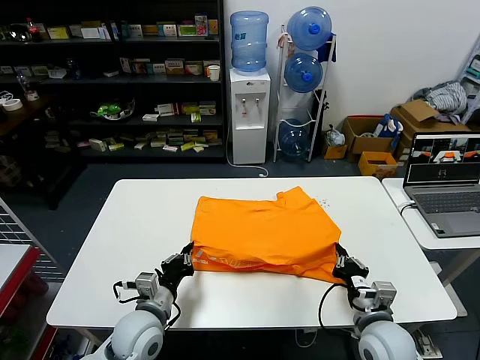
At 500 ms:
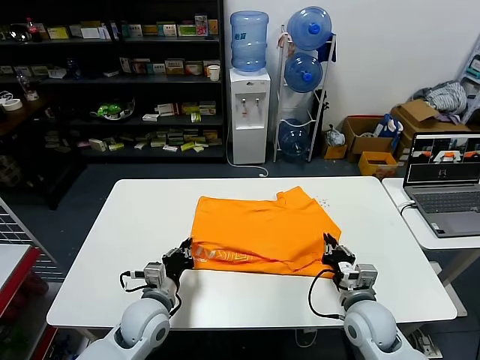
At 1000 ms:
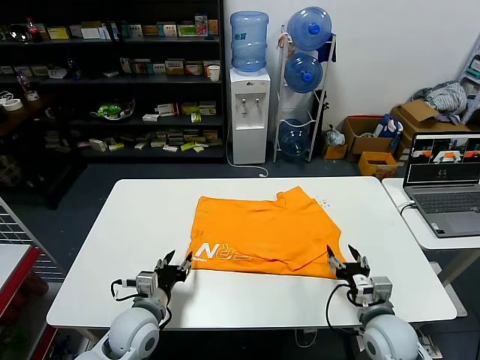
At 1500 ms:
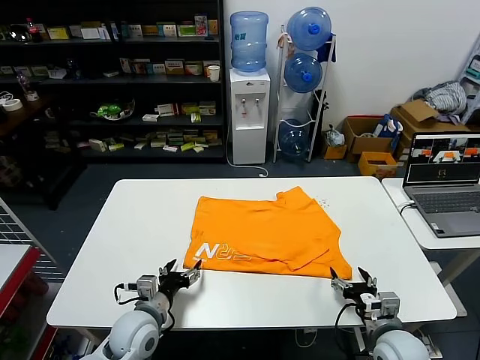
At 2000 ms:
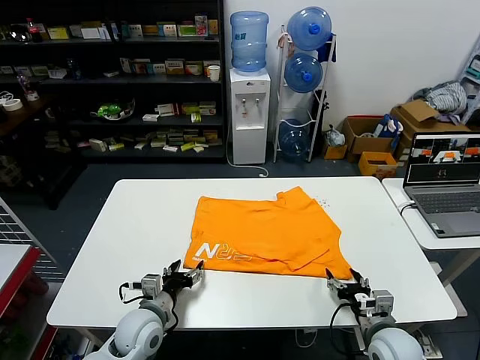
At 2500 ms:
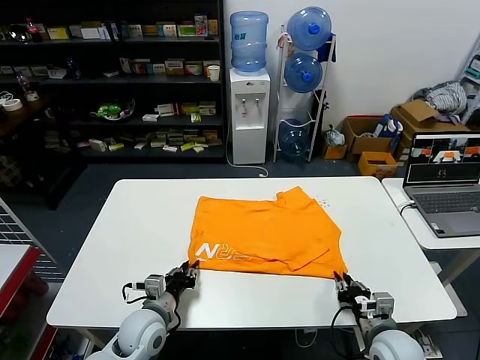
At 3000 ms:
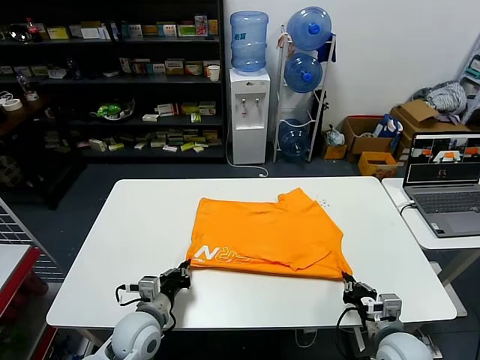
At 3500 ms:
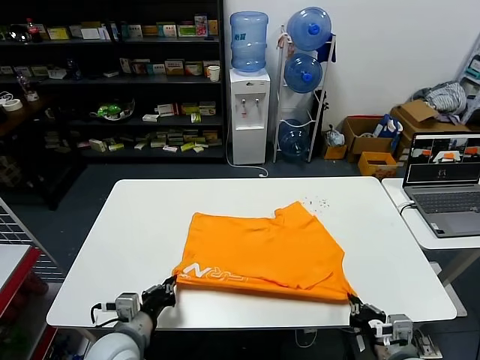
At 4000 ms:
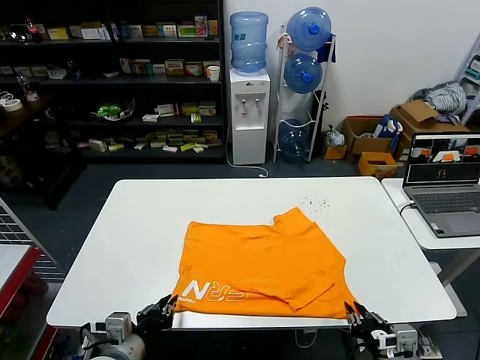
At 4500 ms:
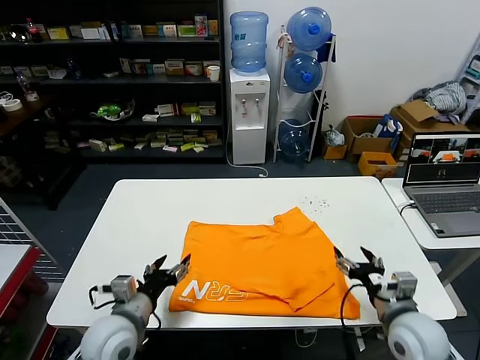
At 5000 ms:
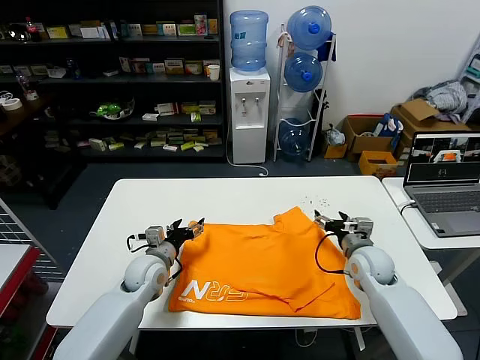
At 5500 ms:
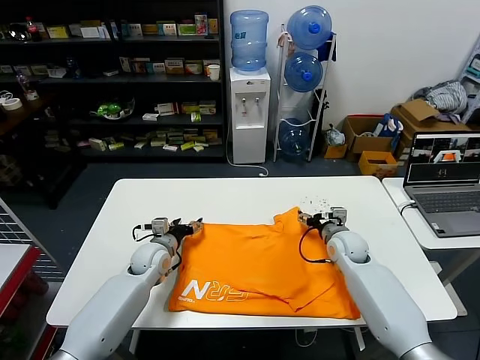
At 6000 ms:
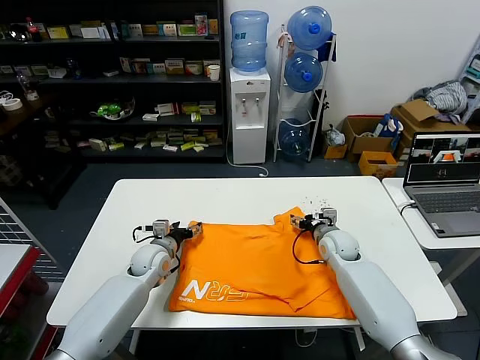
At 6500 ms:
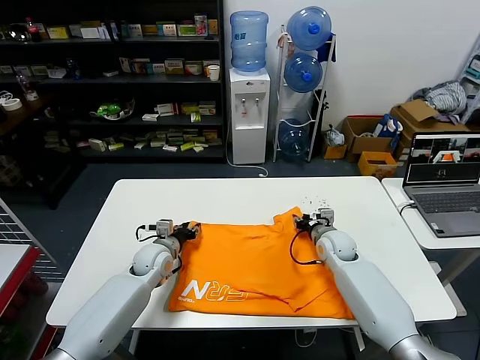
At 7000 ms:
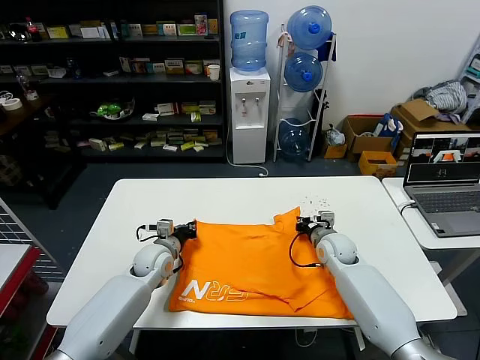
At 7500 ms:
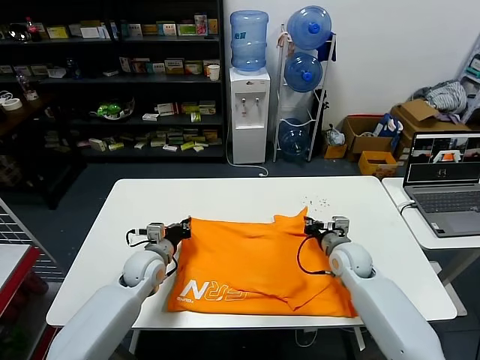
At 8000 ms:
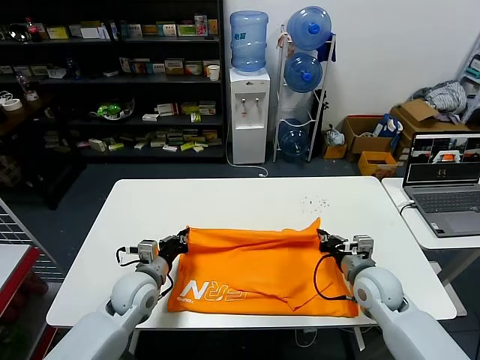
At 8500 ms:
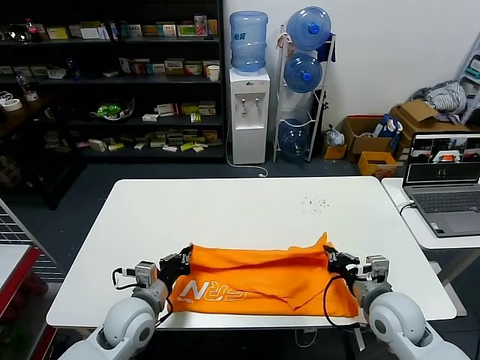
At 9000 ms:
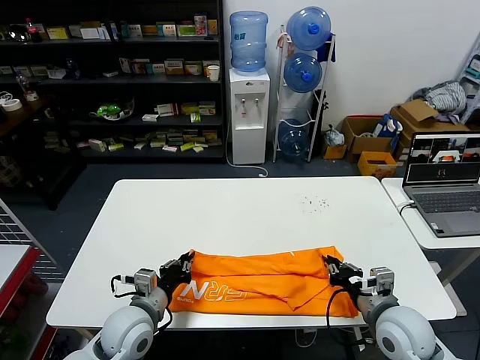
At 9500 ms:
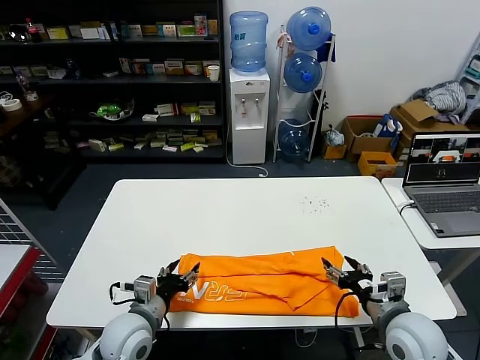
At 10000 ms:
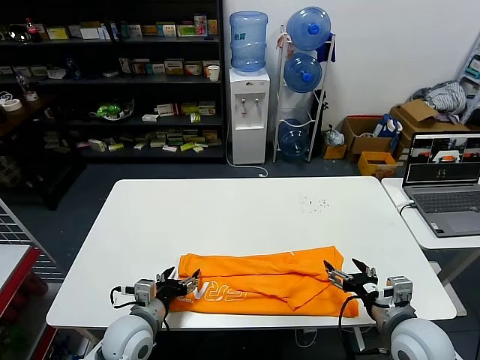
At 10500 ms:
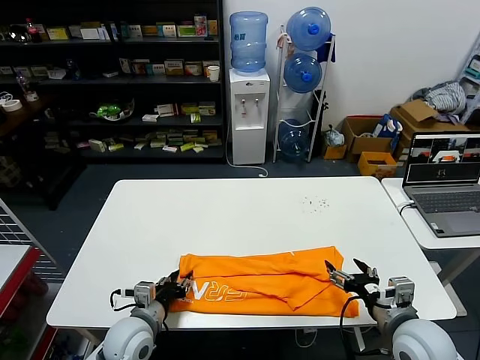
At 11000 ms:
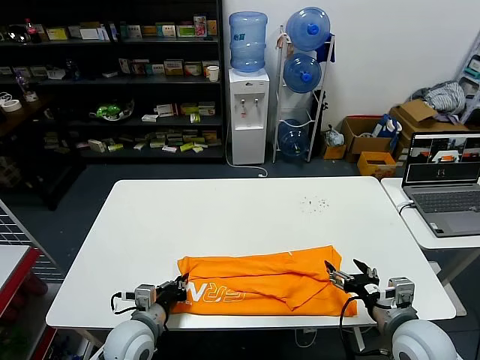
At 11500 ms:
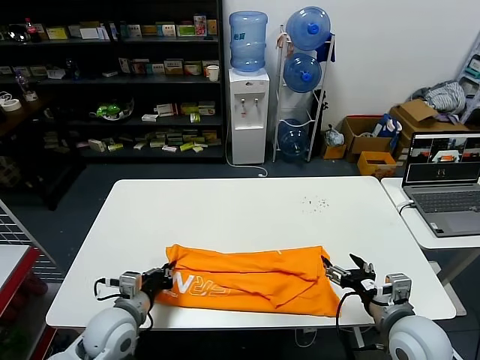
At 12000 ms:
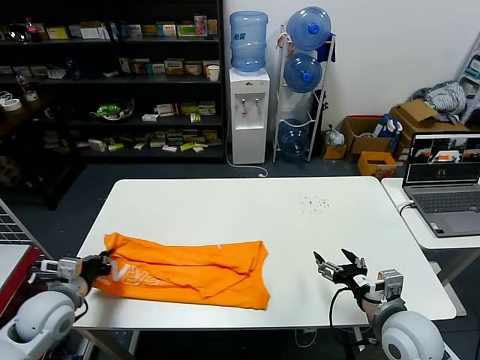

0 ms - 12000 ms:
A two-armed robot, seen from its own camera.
Task of the whole recording: fold and organize the clothes.
Step, 1000 ms - 3500 ms: Drag the clothes downward with both gripper.
Step, 4500 ms - 6500 ms: use both grippers simultaneously to clamp the upper edge of the clothing fabric.
Step, 7000 ms - 9000 ms: use both grippers to drag the upper edge of the fabric backward and fold it over the lower edge.
Step, 9500 ms - 11000 ms: use the left gripper to clamp the left edge of the fabric.
0 ms - 2000 ms: The right gripper moves some 5 cm, and opens up; the left gripper opens.
2000 ms - 4000 ms: The grippers both shift backward and upward by roughly 10 cm. The left gripper closes; the right gripper closes its fingers.
4000 ms - 6000 ms: Both grippers travel together forward, some 30 cm. The left gripper opens its fingers, while the right gripper opens up.
6000 ms - 8000 ms: The two grippers go roughly 10 cm backward. The left gripper closes up, while the right gripper closes its fingers.
8000 ms - 10000 ms: The two grippers go roughly 10 cm backward. The right gripper opens up, while the left gripper opens.
10000 ms - 12000 ms: The left gripper moves to the left and upward, some 15 cm, and closes up.

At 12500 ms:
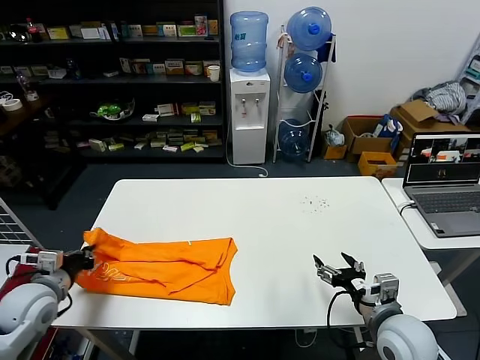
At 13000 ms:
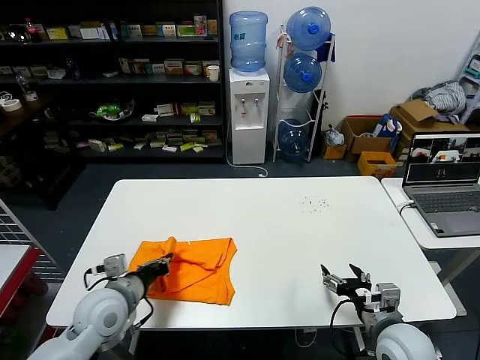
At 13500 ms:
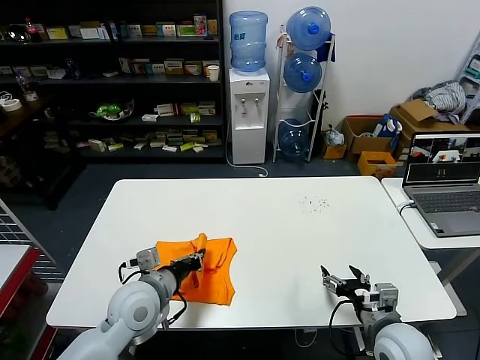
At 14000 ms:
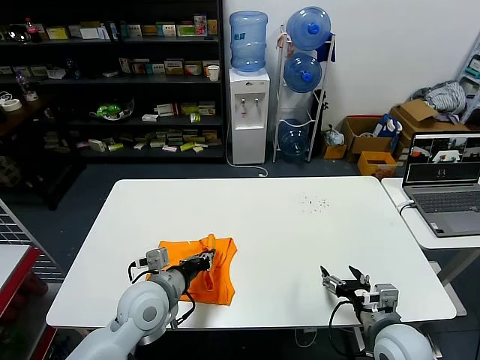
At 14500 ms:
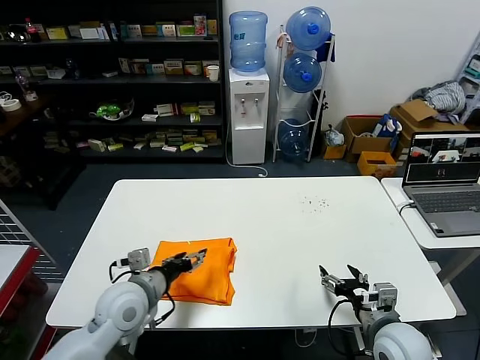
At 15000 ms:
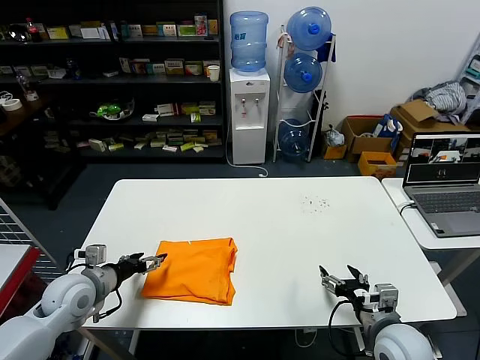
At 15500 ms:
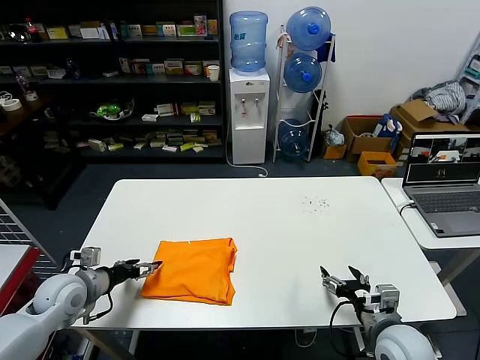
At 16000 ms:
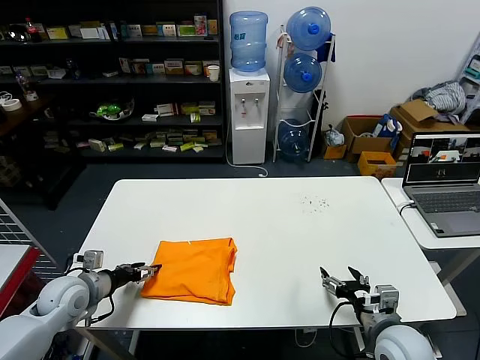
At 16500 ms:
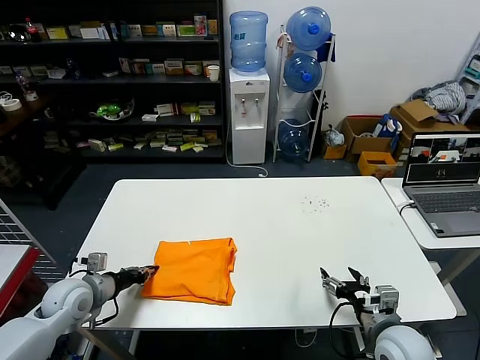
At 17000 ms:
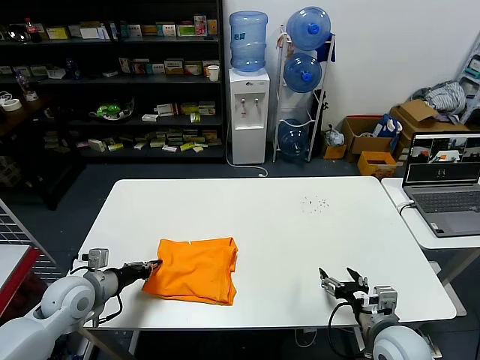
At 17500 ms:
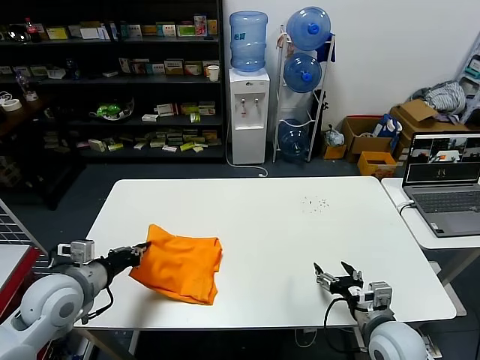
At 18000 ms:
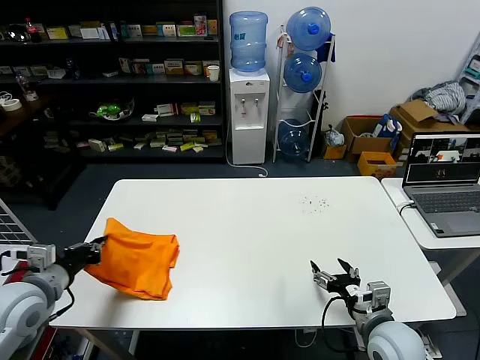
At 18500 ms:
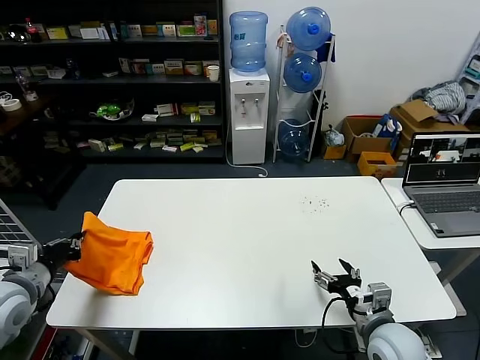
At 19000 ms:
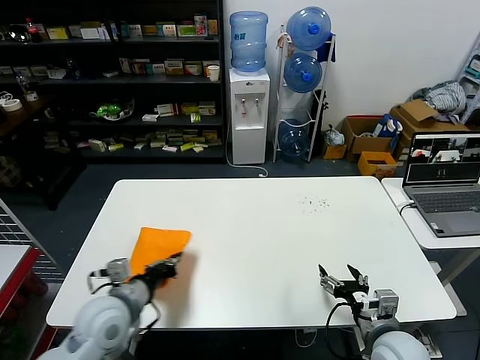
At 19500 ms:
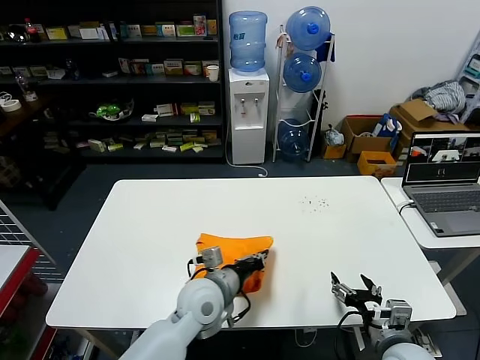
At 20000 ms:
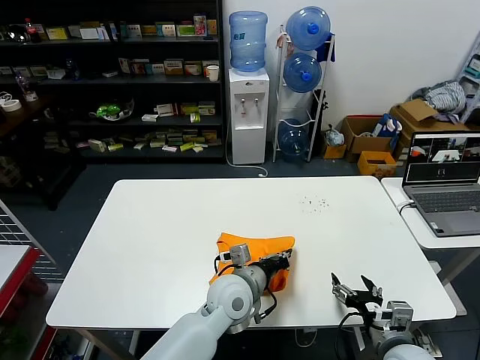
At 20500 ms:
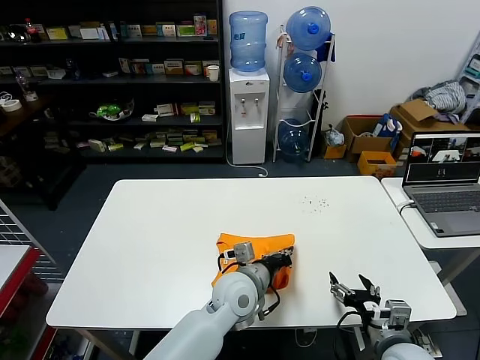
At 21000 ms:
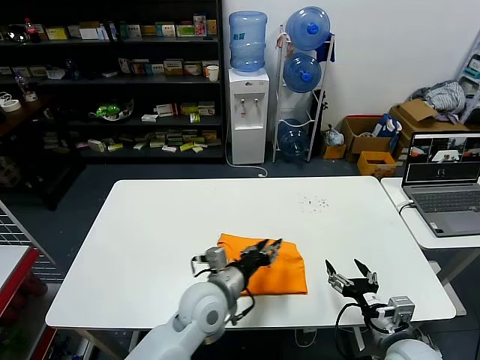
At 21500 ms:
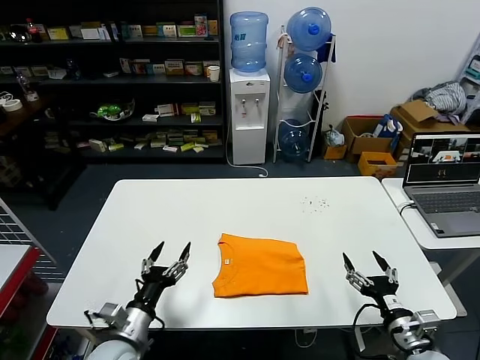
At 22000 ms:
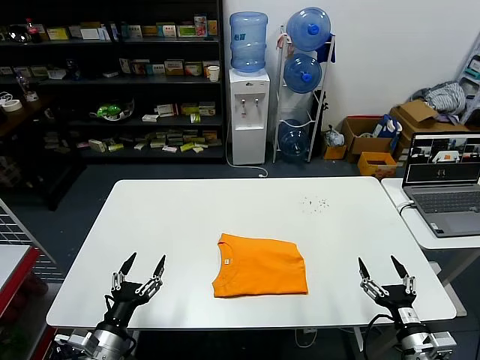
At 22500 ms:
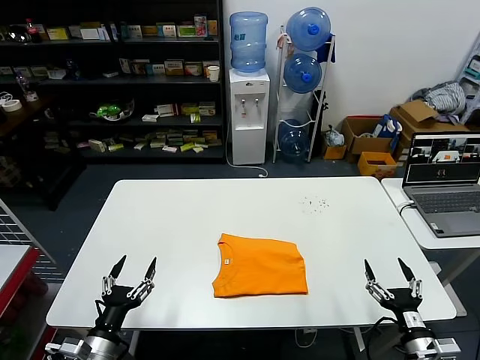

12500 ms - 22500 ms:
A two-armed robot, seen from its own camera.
Task of the whole recording: fold and organize the clothes.
Step, 12500 ms - 14000 ms: use the left gripper to drag the left edge of the fabric to the left and folds it over the right edge.
Step, 14500 ms - 20500 ms: Flip the folded clothes over with left gripper.
12500 ms - 14500 ms: The left gripper is displaced to the right by some 20 cm, and opens up.
14500 ms - 16500 ms: The left gripper travels to the left by some 15 cm, and closes up.
16500 ms - 18500 ms: The left gripper shifts approximately 15 cm upward and backward.
18500 ms - 20500 ms: The left gripper is displaced to the right by roughly 40 cm.
20500 ms - 22500 ms: The right gripper goes approximately 5 cm to the right. Meanwhile the left gripper shifts approximately 35 cm to the left and backward, and opens its fingers.
